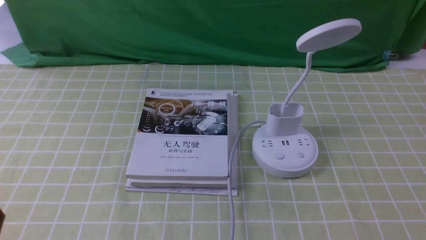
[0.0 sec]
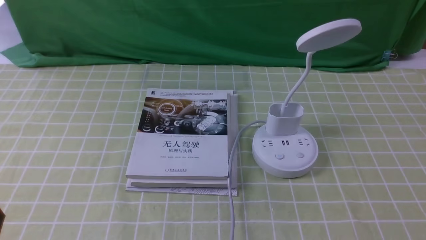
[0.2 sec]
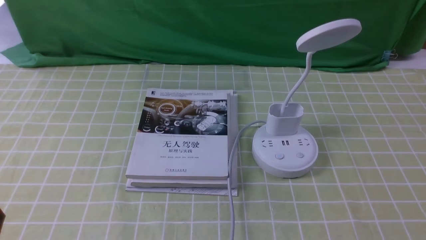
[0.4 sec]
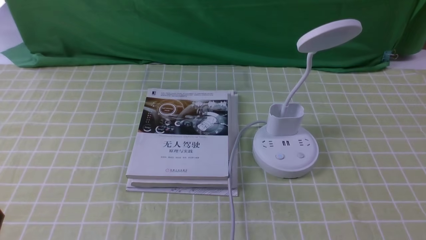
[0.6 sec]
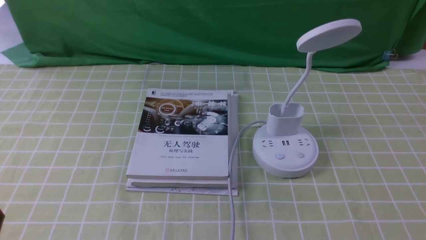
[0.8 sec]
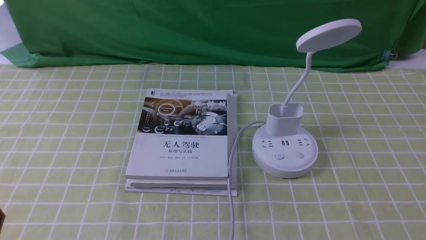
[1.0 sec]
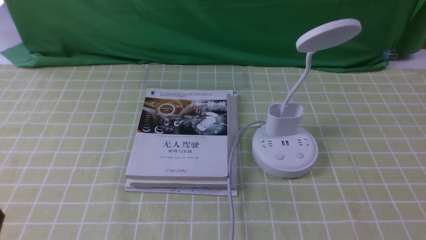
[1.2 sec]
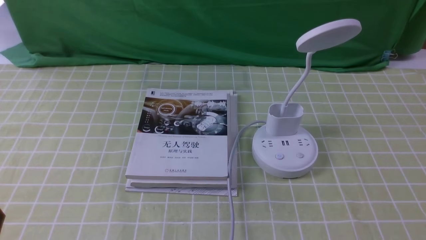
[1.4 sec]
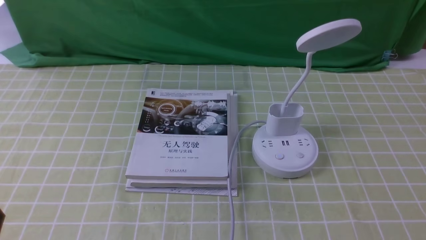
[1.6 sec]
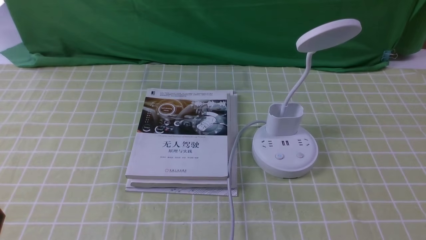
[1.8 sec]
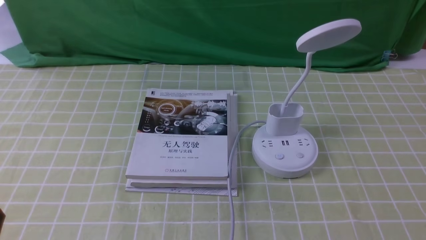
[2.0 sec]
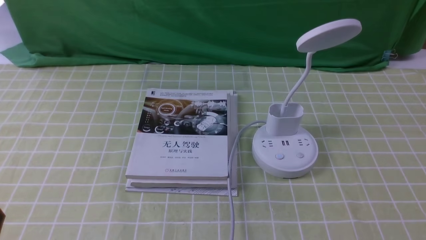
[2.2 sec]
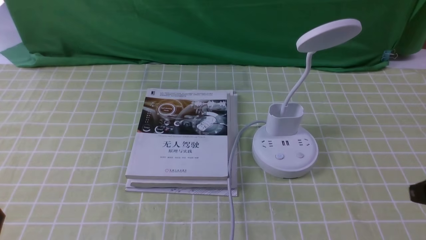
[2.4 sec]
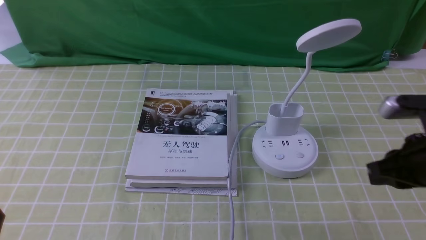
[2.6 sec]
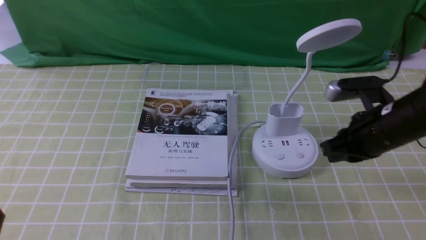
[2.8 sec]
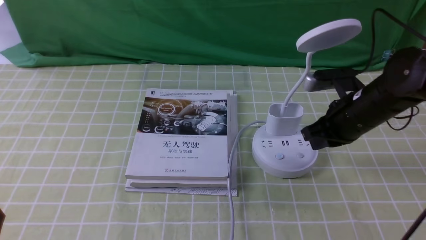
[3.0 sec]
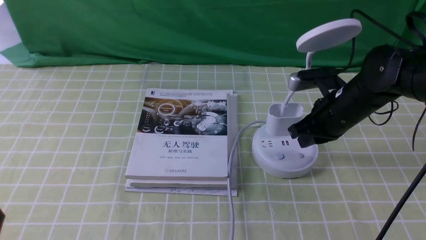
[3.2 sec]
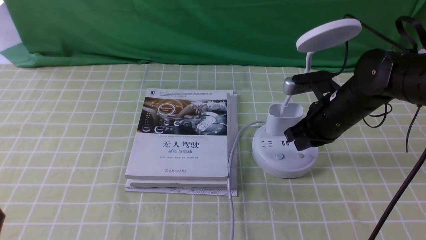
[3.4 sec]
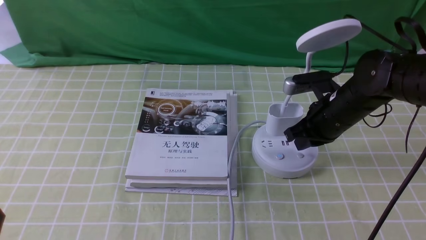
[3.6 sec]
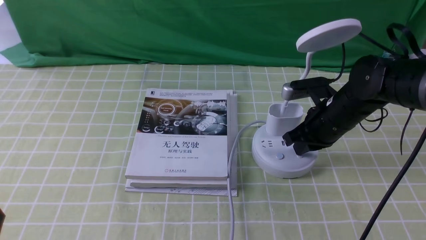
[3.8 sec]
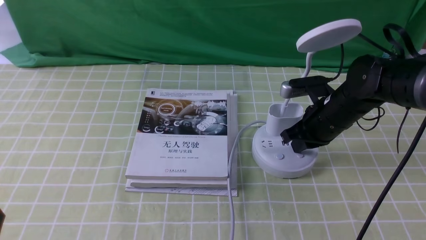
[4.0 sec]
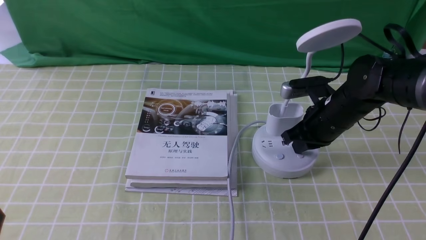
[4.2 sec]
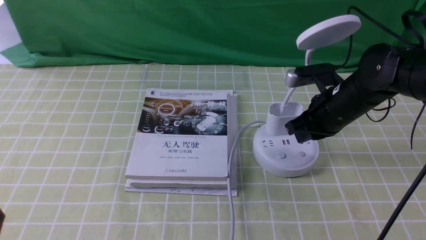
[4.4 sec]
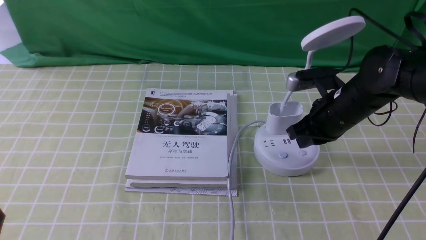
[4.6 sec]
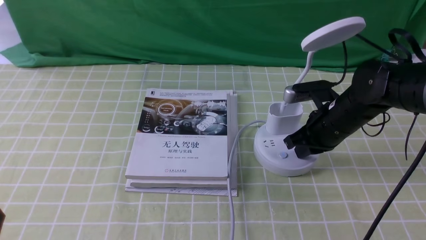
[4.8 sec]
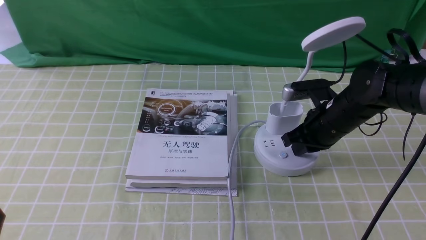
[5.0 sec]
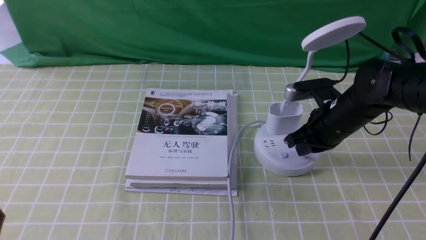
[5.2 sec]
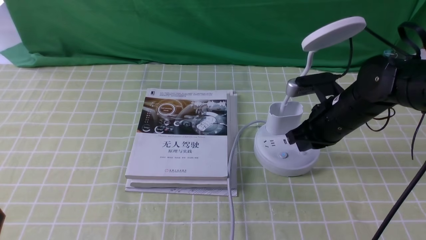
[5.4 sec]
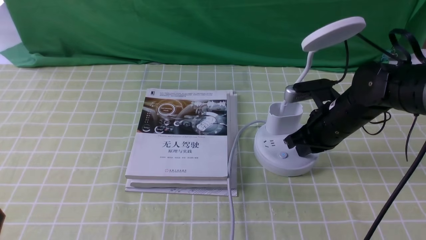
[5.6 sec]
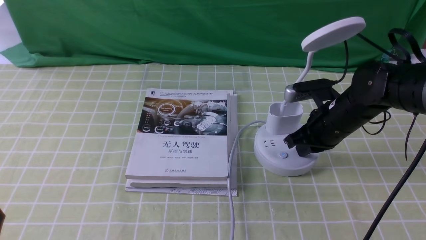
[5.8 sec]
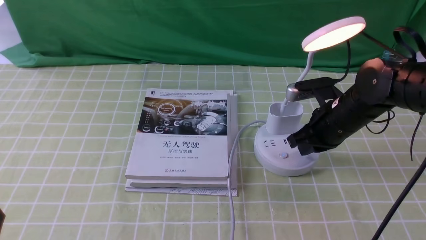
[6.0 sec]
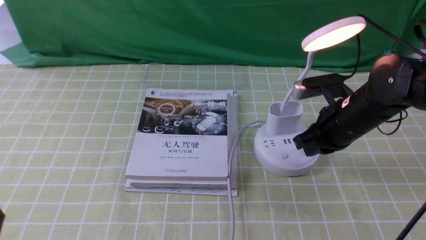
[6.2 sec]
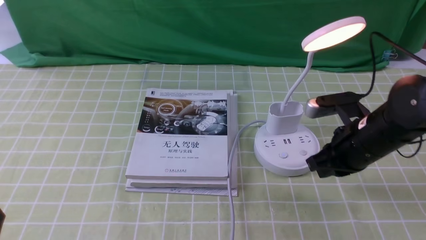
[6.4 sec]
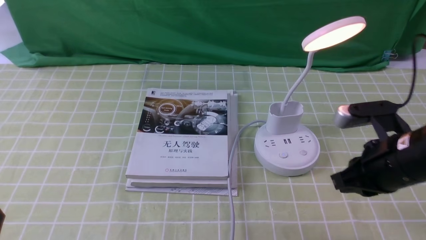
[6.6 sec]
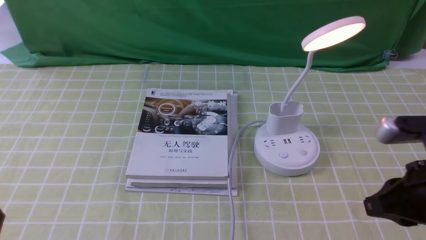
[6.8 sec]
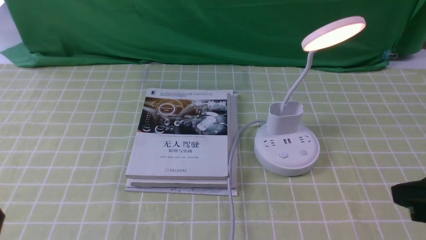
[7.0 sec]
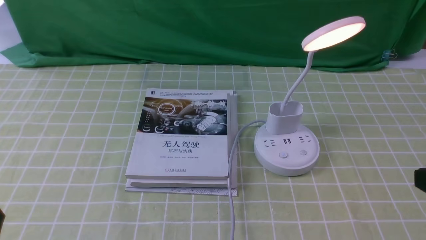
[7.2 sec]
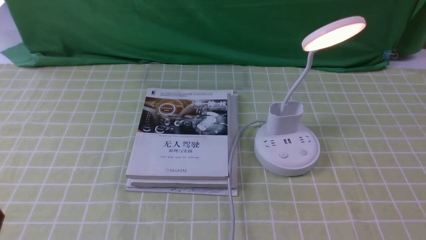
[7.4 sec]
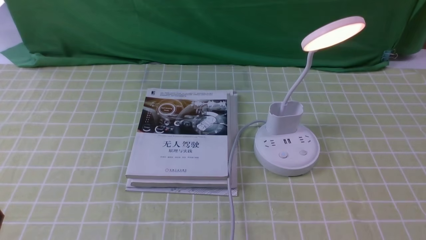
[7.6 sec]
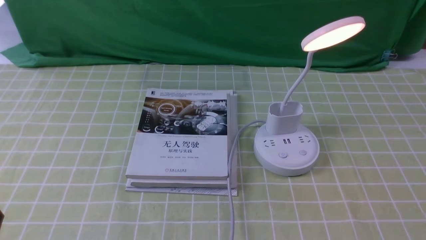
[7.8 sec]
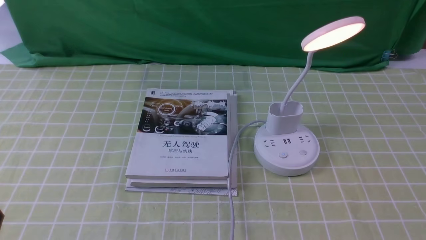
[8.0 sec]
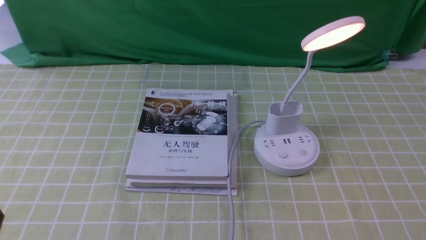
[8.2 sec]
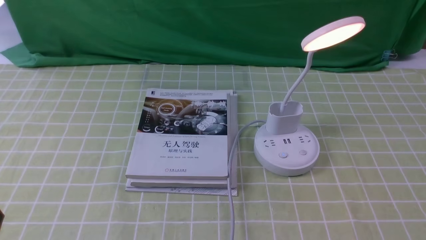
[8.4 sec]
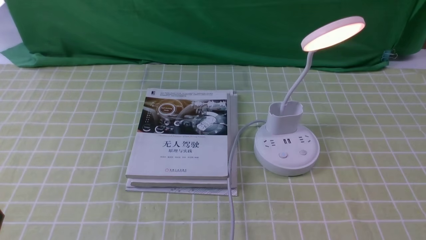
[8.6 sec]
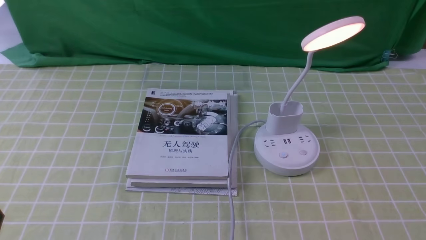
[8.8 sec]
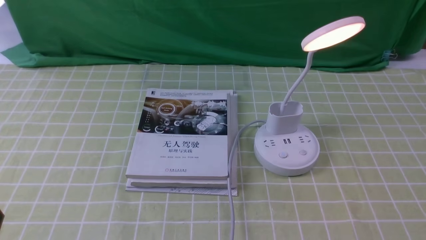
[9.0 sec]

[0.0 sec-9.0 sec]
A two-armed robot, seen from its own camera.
Step, 0.0 sec to 6.2 sec: use the right arm to press the button switch on the lamp holder.
1.6 sec to 3.0 sec: The right gripper moves forward, about 30 cm, and closes its fingers.
3.0 sec to 6.0 sec: The grippers stay close to where they were, moving slightly.
6.0 sec to 7.6 sec: The right gripper goes some 30 cm backward and to the right.
